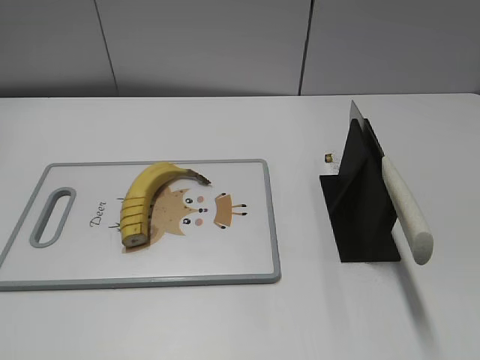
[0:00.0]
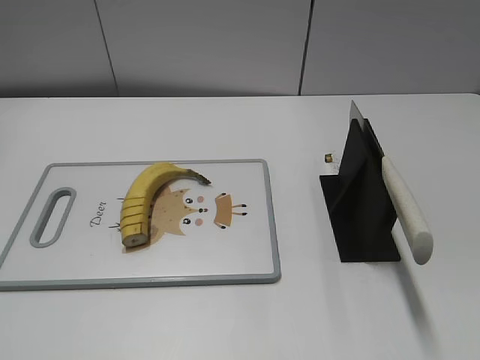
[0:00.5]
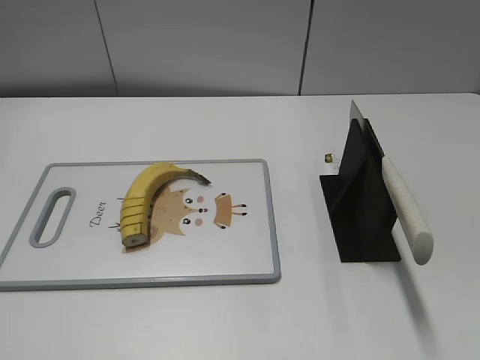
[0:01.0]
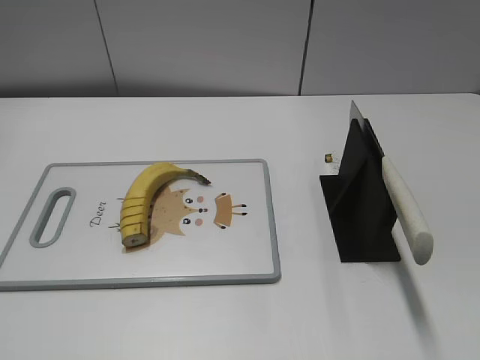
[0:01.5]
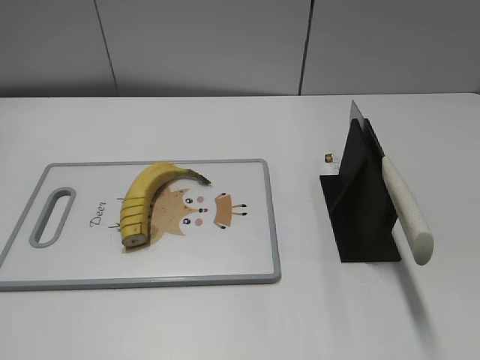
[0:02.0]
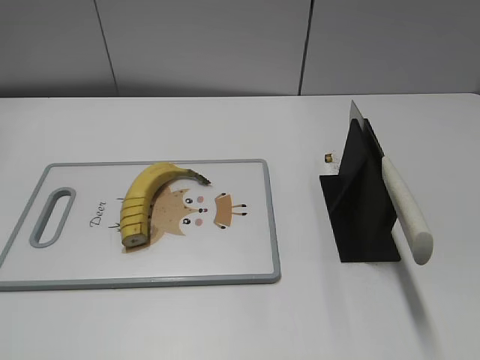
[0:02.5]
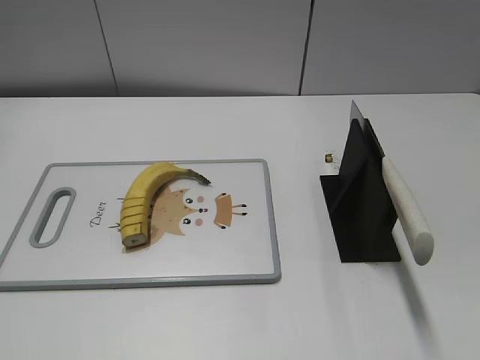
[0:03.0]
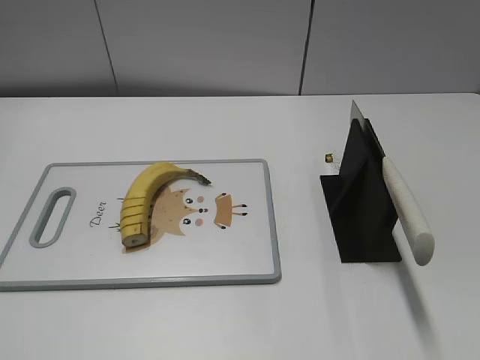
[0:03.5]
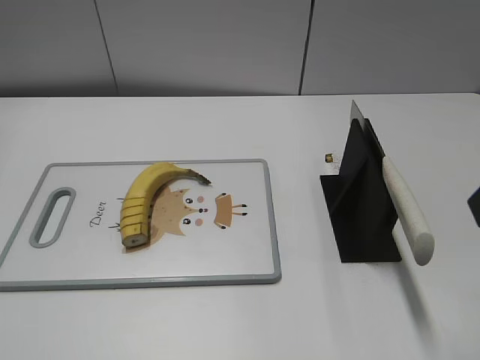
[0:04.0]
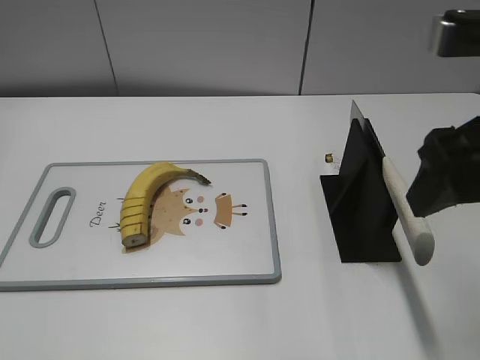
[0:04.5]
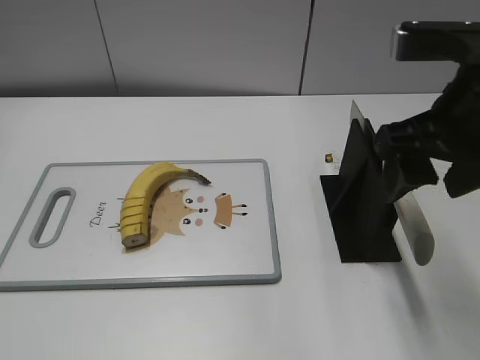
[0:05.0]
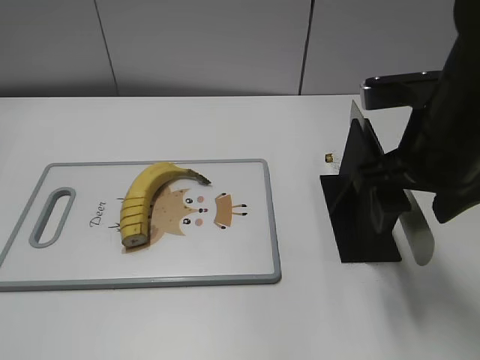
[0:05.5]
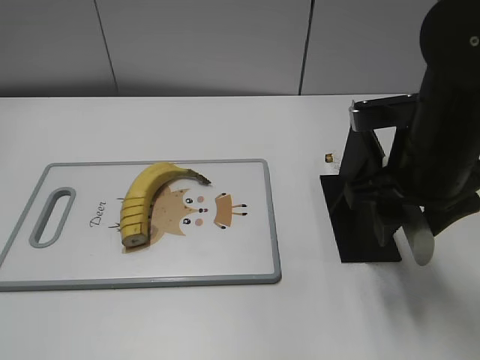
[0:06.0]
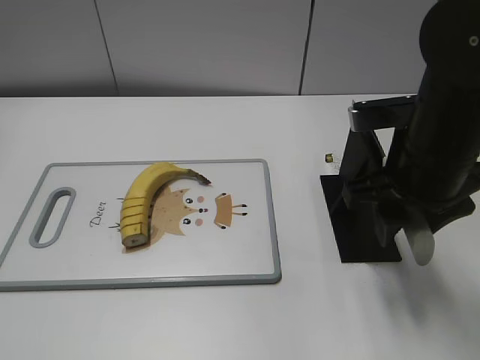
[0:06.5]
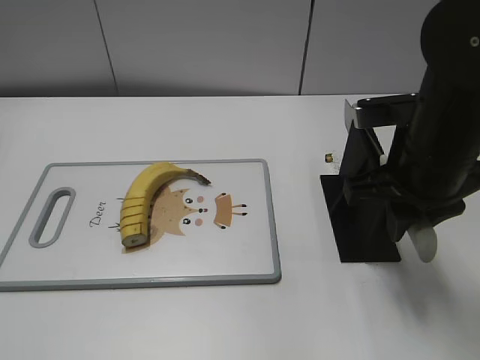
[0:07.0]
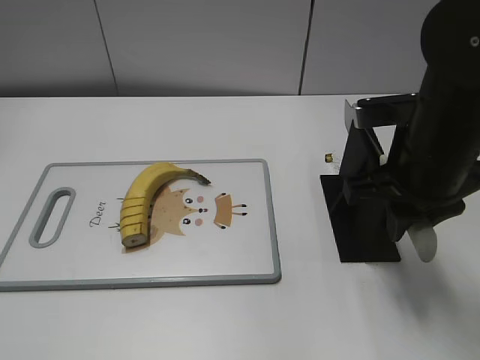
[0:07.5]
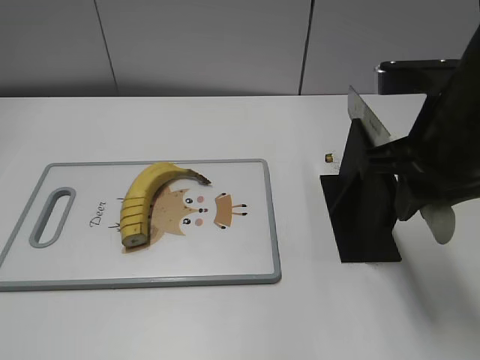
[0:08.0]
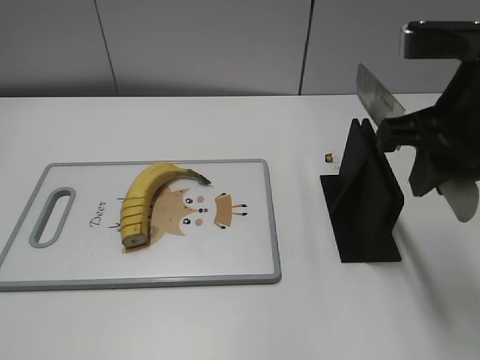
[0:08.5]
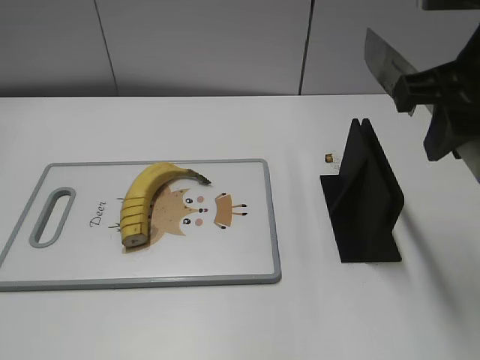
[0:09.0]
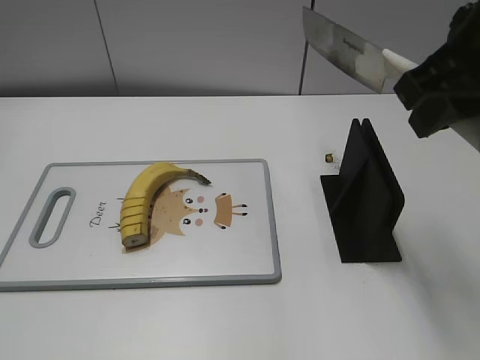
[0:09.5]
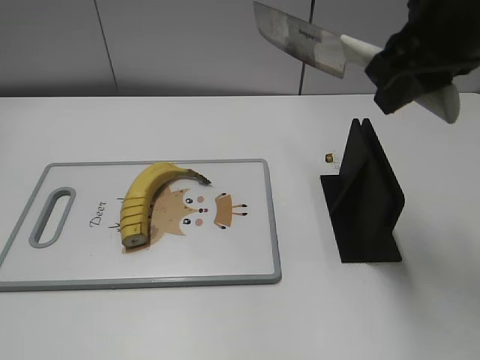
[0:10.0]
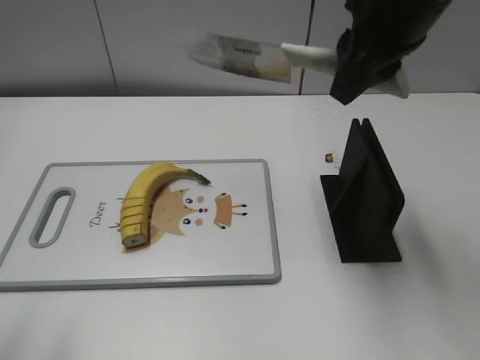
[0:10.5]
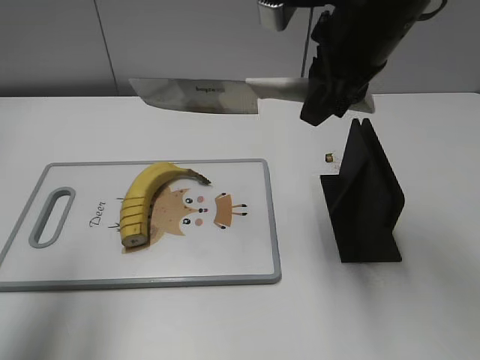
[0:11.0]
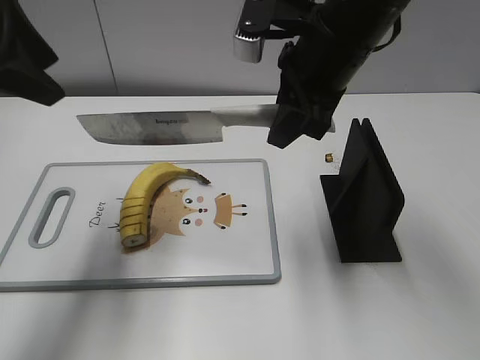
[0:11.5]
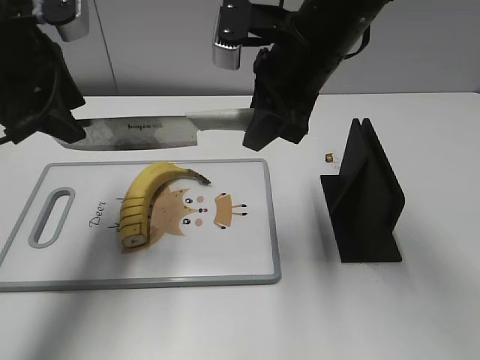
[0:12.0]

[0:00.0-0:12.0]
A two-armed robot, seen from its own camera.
Task of the whole recording: cut banana.
Step, 0:00.0 to 0:08.0: Grab the knife handle with your right hand.
0:04.0 to 0:06.0: The right gripper shifts approximately 20 cm downward, forward and to the left.
0:06.0 to 0:08.0: The right gripper closes up.
0:08.0 to 0:10.0: The right gripper heads upward, covering about 10 cm.
0:10.0 to 0:12.0: The right gripper moves to the left, downward and forward, approximately 15 cm, while the left gripper shifts approximately 30 cm forward.

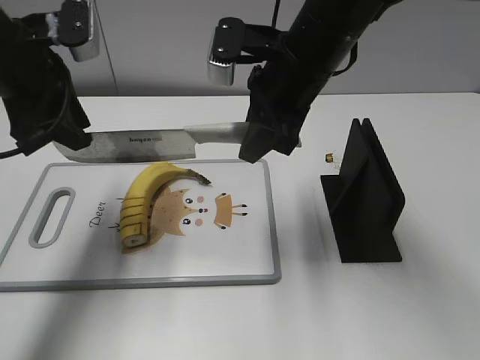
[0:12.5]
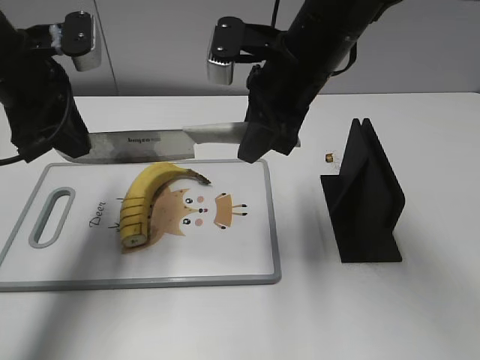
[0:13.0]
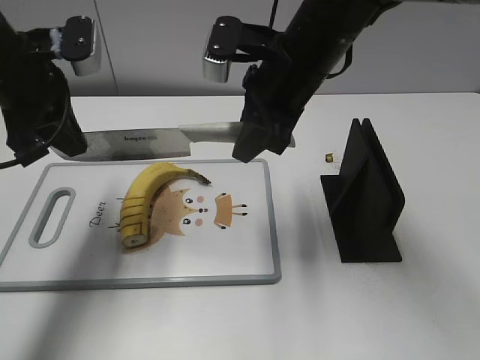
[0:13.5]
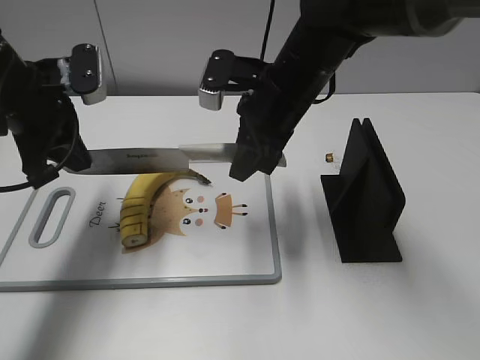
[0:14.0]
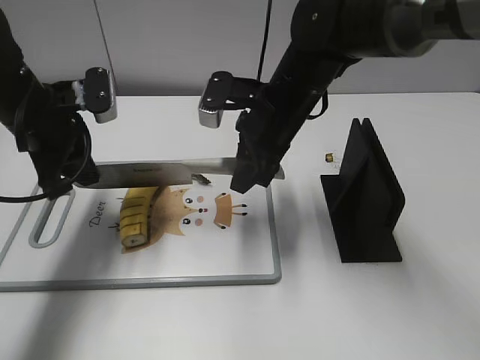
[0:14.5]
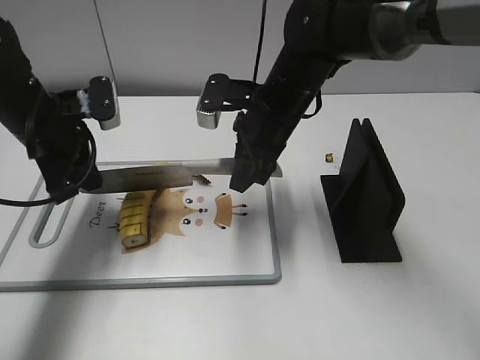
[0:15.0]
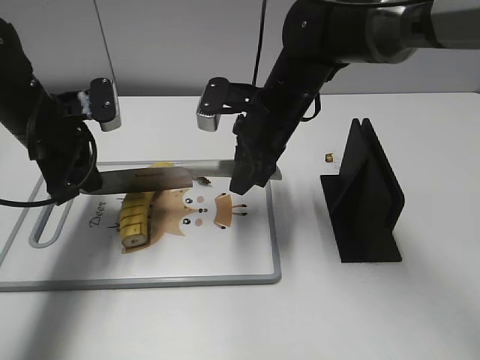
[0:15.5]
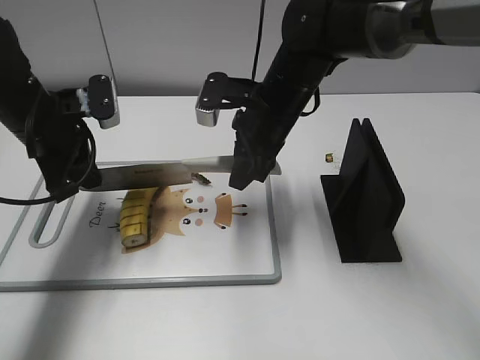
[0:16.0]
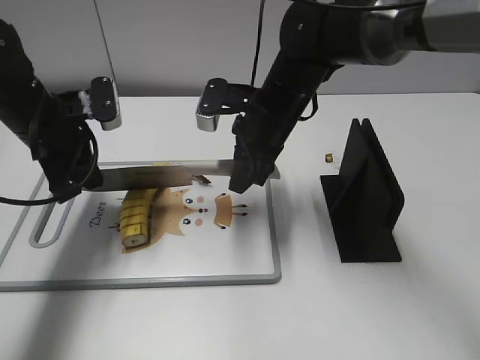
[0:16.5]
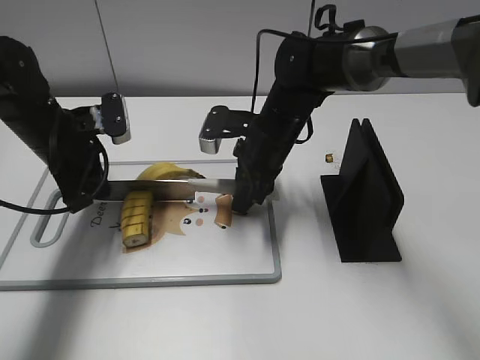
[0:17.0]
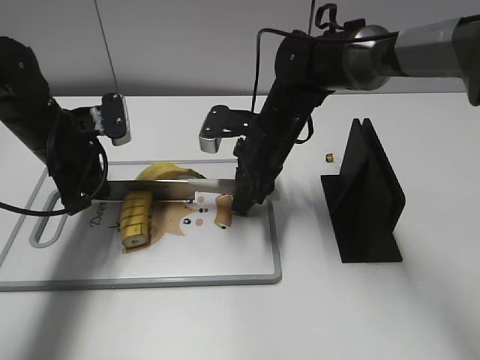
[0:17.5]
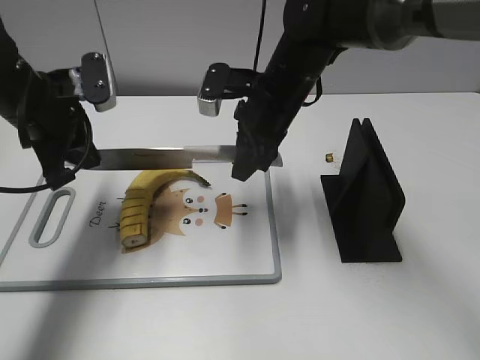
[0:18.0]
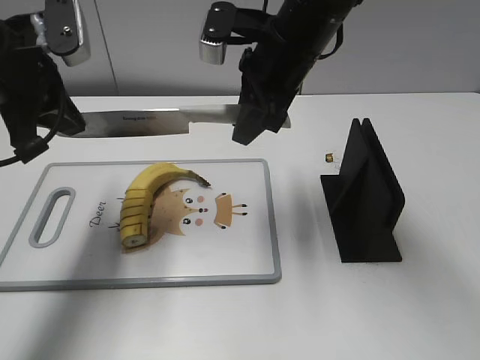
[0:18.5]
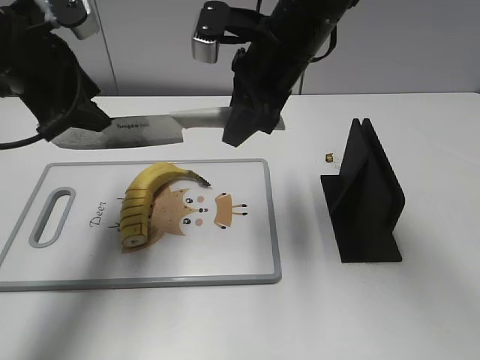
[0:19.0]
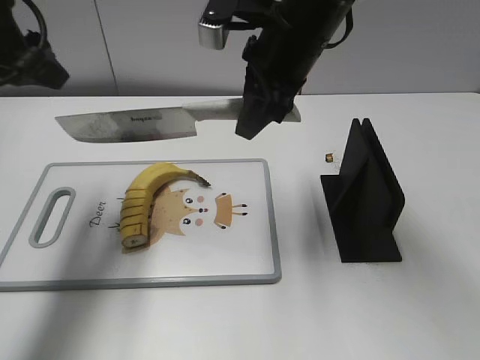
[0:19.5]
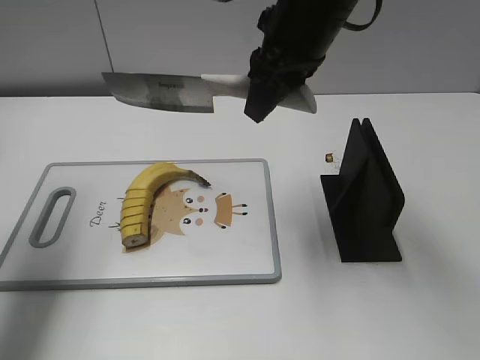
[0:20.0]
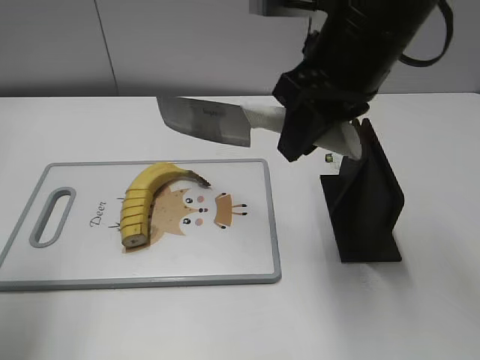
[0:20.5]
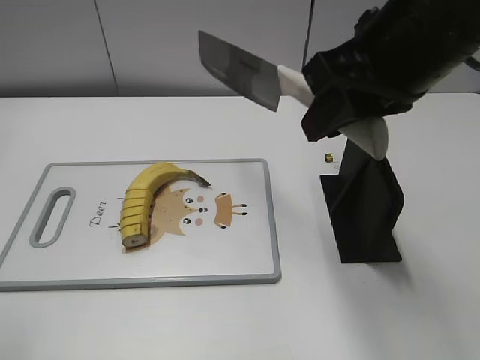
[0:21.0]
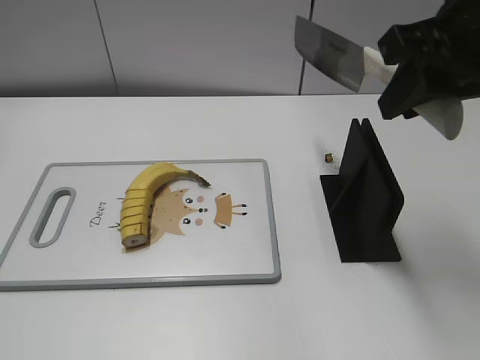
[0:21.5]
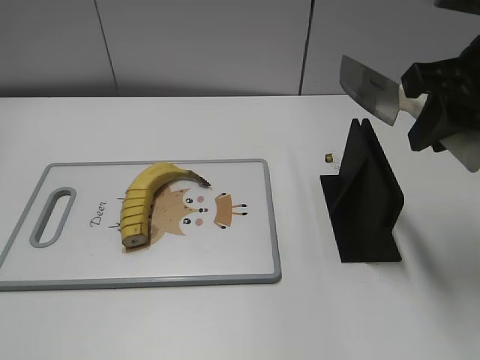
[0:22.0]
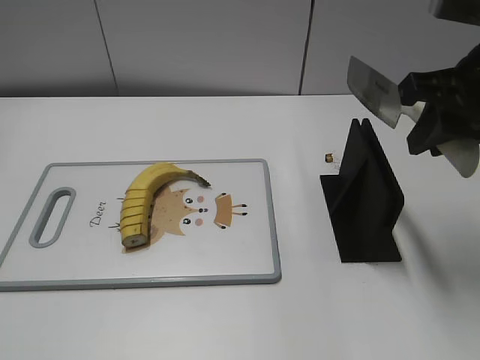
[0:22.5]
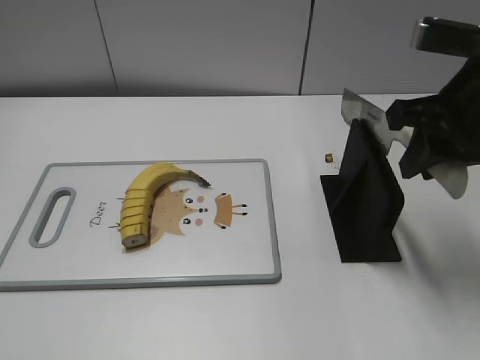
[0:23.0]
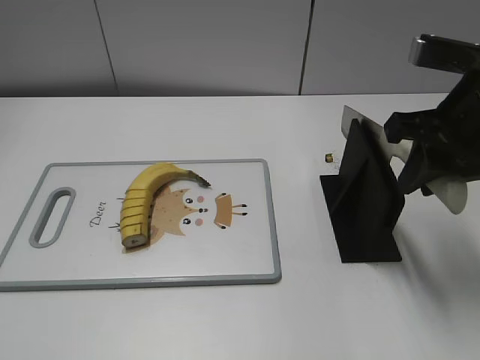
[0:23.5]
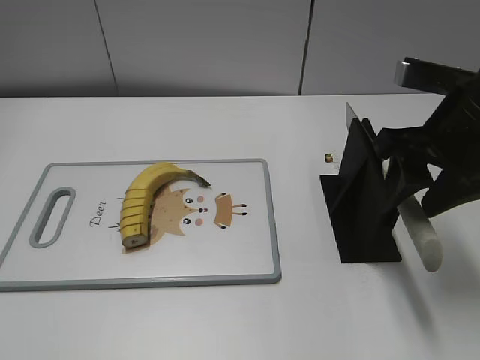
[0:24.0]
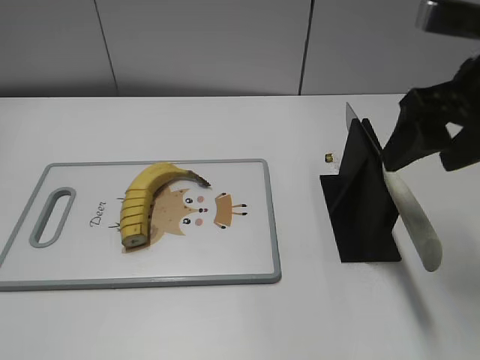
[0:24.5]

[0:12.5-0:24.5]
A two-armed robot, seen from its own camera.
Task of the whole recording: cut banana.
Step, 0:12.5 to 0:15.5: Lift the knife with your right hand.
Step, 0:16.0 to 0:21.0: Cut the banana with your right hand.
Step, 0:21.5 to 0:23.0: Lift the knife with your right hand.
0:12.5 to 0:14.5: The two grippers go approximately 5 cm downward. The left gripper closes.
0:14.5 to 0:16.5: The grippers stay close to where they were, moving slightly.
0:16.5 to 0:18.5: The two grippers go roughly 10 cm upward.
0:18.5 to 0:20.5: The right gripper is displaced backward and upward by approximately 10 cm. The left gripper heads backward, to the left and upward, covering roughly 15 cm, and opens up.
0:20.5 to 0:22.5: The left gripper moves backward, some 20 cm. Meanwhile the right gripper heads to the right, covering about 10 cm.
0:22.5 to 0:24.5: The right gripper opens up.

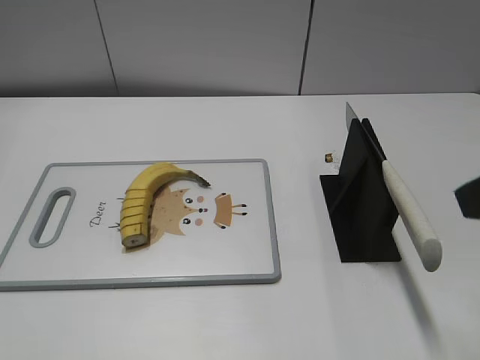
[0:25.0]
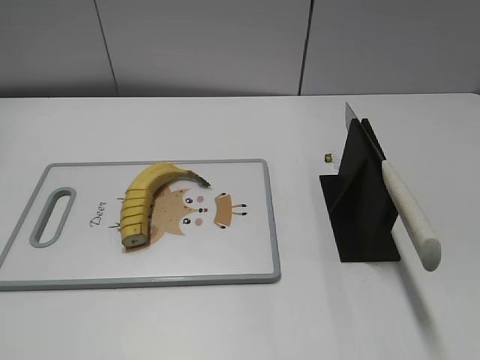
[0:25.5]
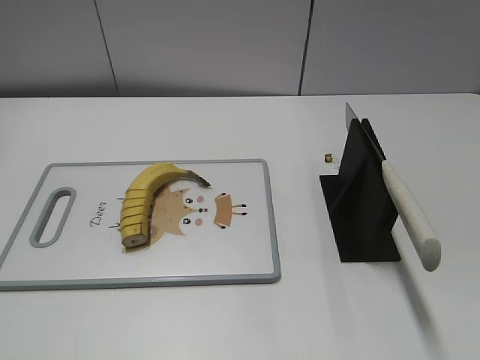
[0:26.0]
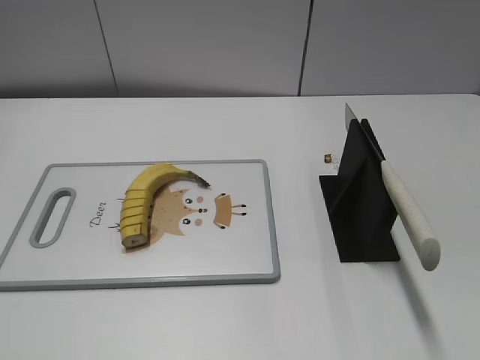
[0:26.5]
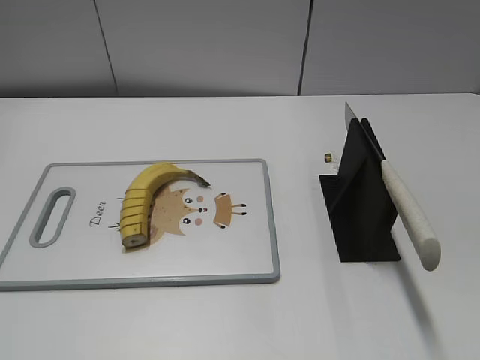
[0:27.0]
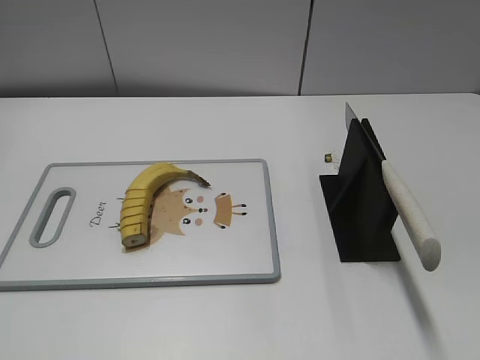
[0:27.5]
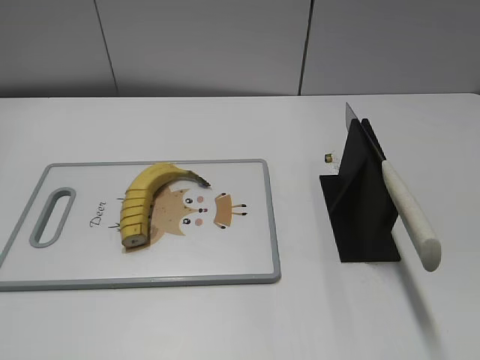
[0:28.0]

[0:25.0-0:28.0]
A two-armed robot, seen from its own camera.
Task of the whole recording: cut banana.
0:25.0 to 0:26.5: The right gripper goes about 15 cm backward.
